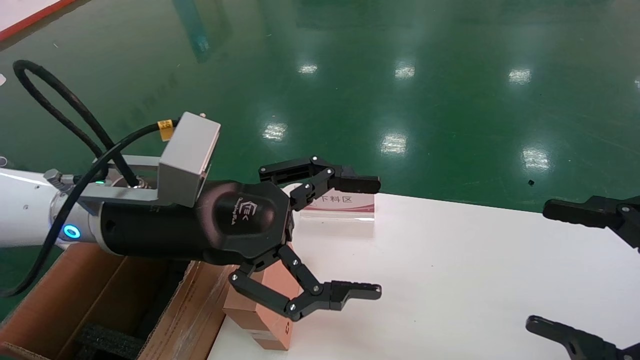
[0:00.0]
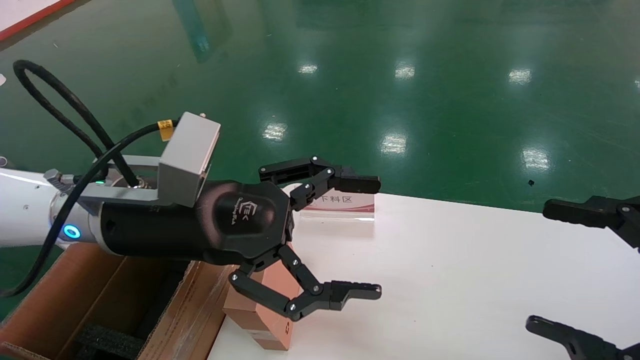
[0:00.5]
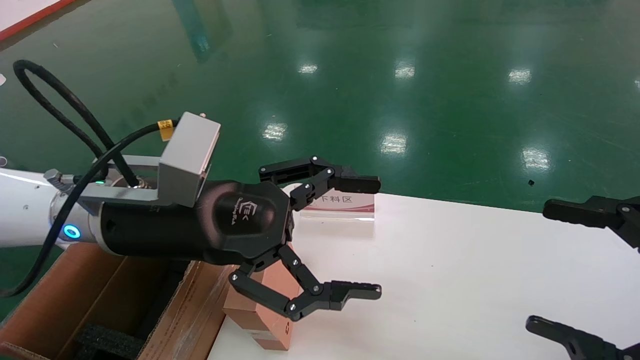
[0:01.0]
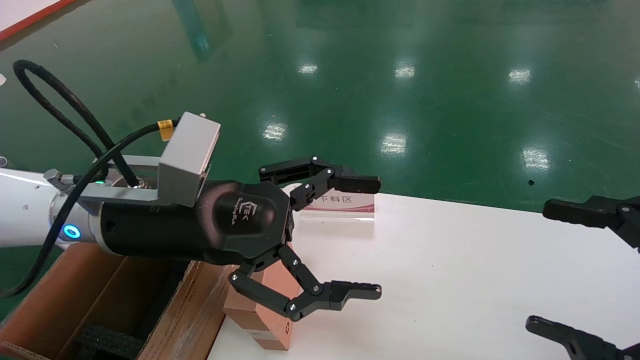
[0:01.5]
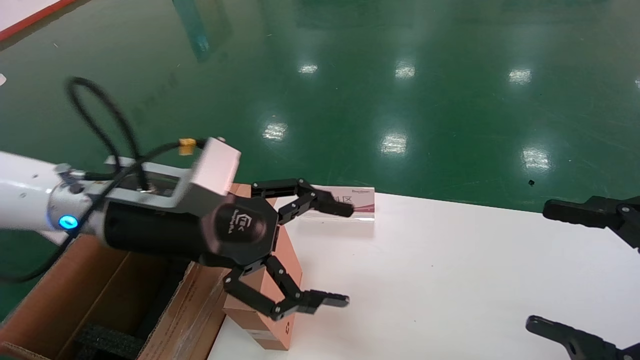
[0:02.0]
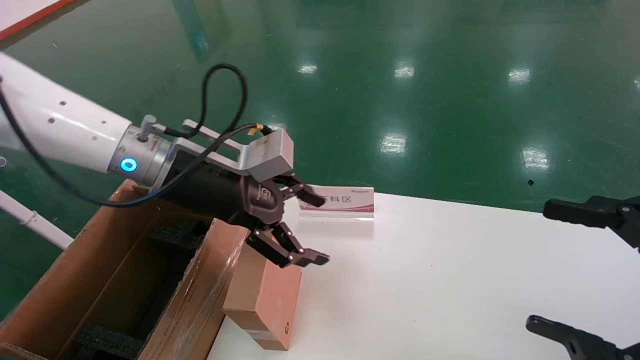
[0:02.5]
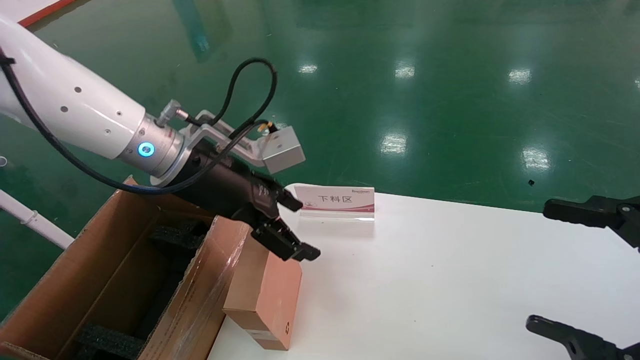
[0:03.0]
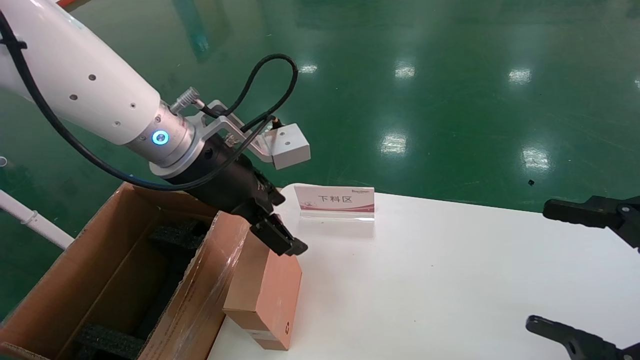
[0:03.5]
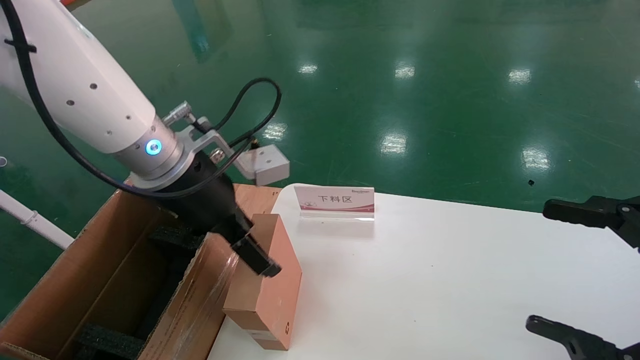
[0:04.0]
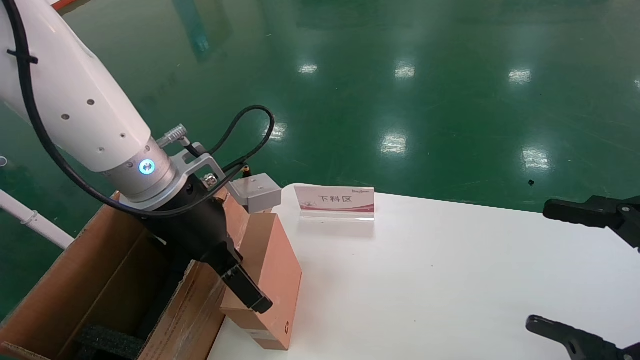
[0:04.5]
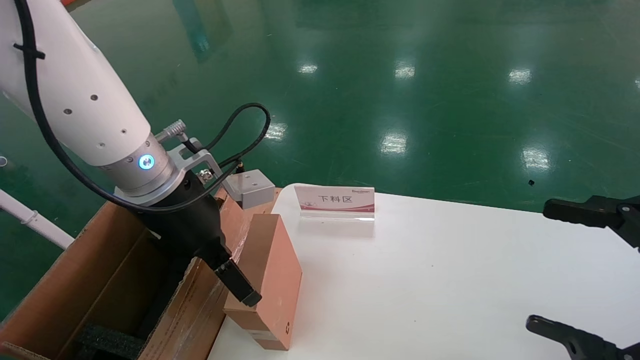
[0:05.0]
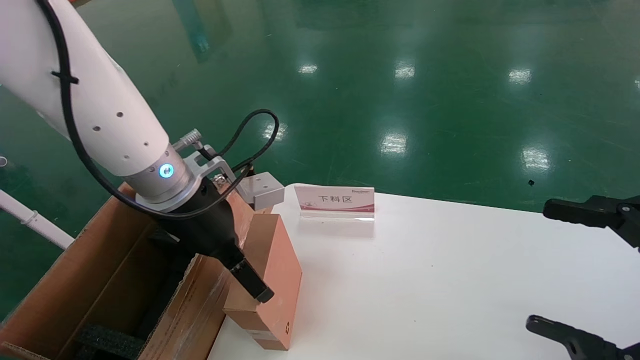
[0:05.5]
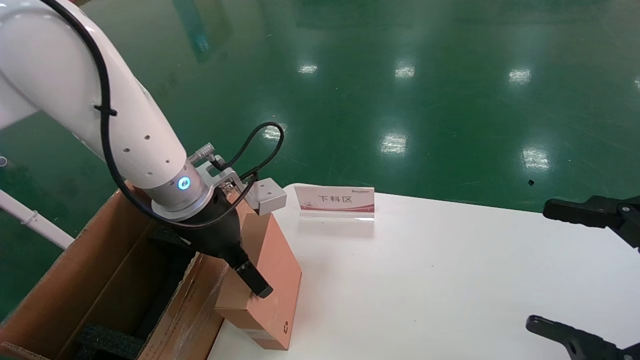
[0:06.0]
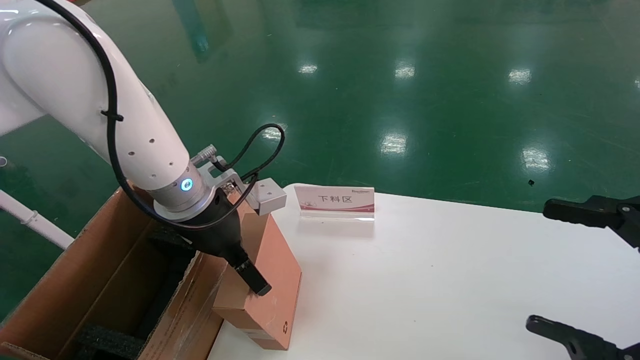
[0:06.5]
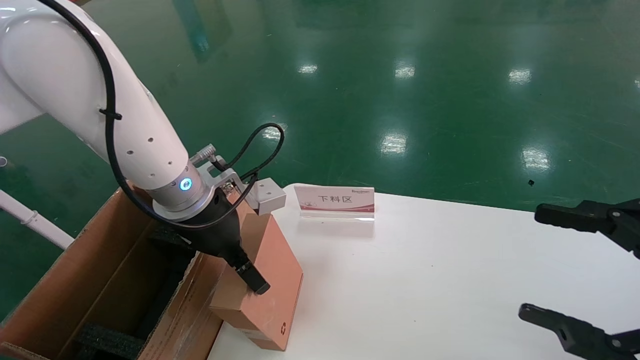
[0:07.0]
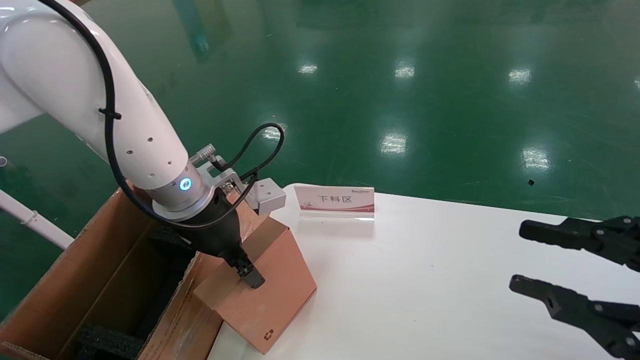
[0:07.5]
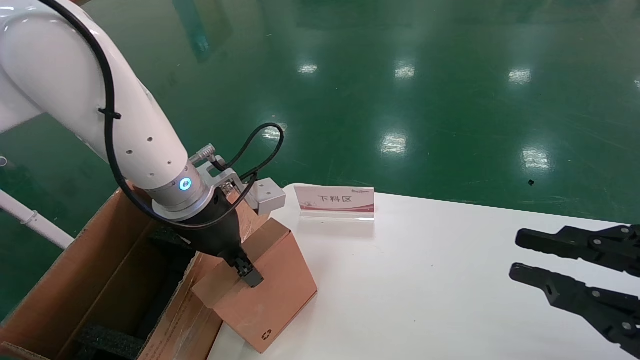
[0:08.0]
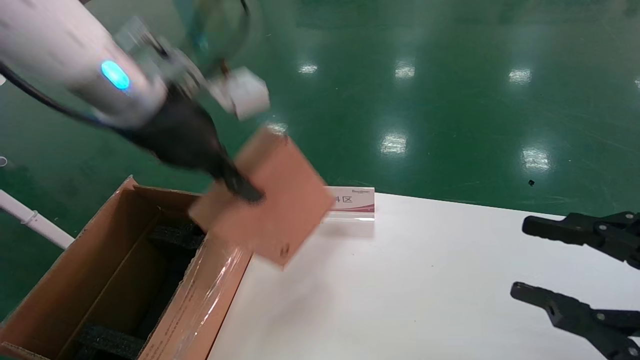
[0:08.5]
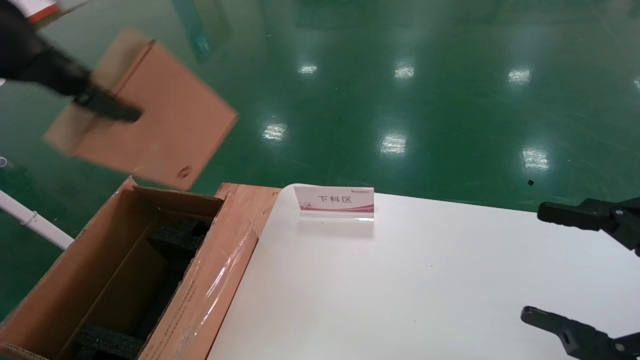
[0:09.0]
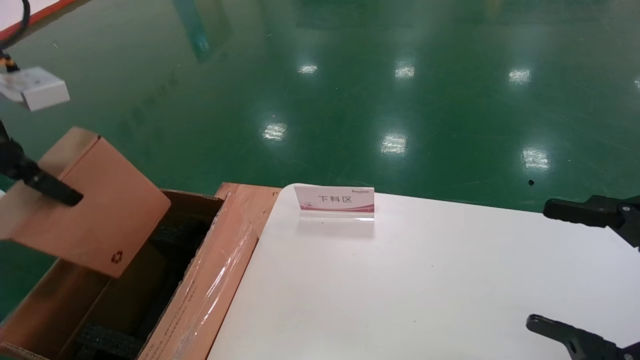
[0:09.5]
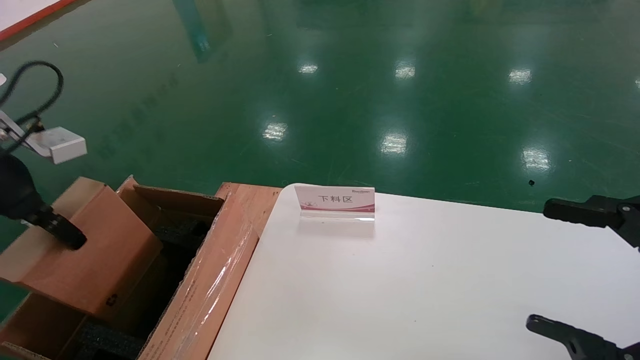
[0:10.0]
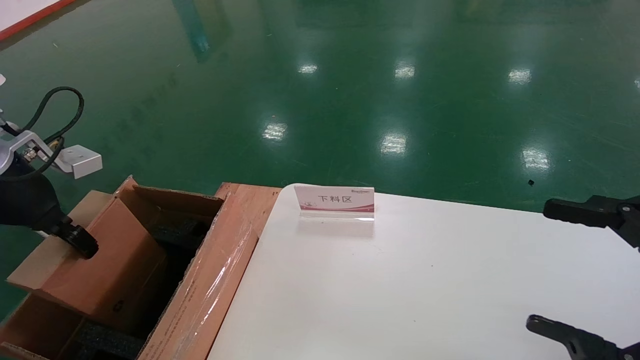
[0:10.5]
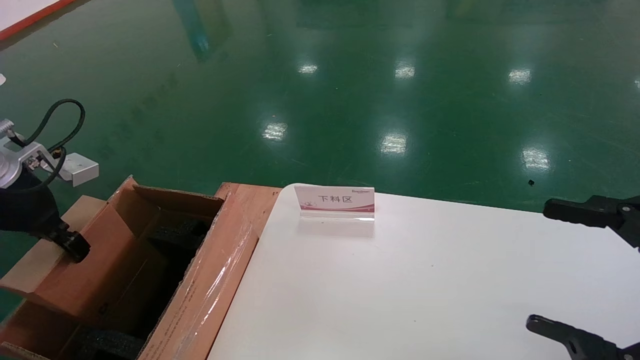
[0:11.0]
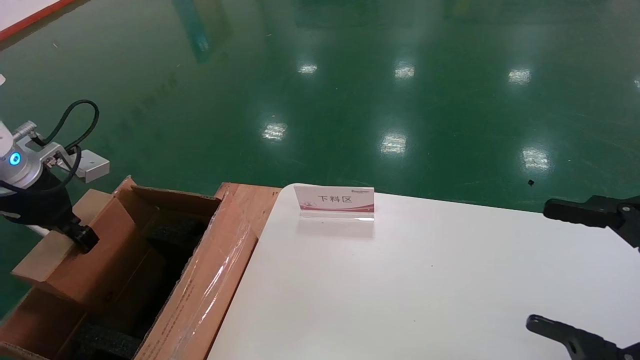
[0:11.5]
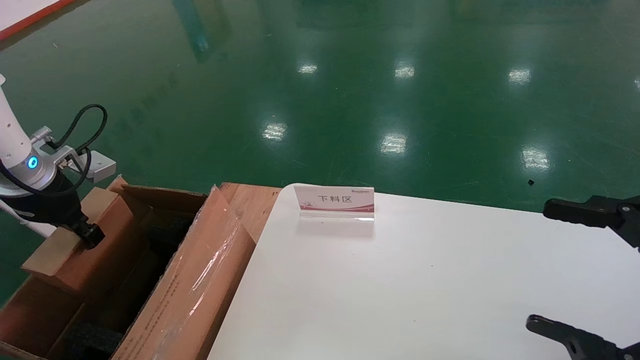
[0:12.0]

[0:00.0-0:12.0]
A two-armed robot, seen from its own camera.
Task of the whole recording: pick up the small cardboard box and load it into the large cardboard box.
Step, 0:02.5 to 0:07.5: Pick up the mouse and power cord box.
0:00.0 to 0:02.0: There are only small adjustments of the grippers.
0:02.0 to 0:04.0: The left gripper changes place by about 5 cm.
0:04.0 to 0:06.0: The left gripper moves about 5 cm.
0:06.0 to 0:08.0: The left gripper closes; the right gripper closes.
0:08.0 to 0:10.0: The left gripper shifts some 25 cm to the left and backward. Meanwhile the right gripper opens up.
0:10.0 to 0:12.0: The left gripper shifts approximately 10 cm downward and forward.

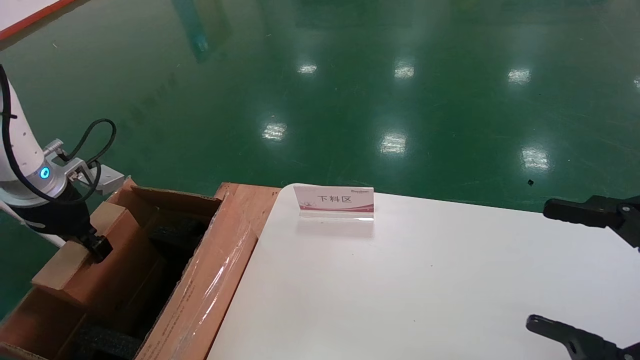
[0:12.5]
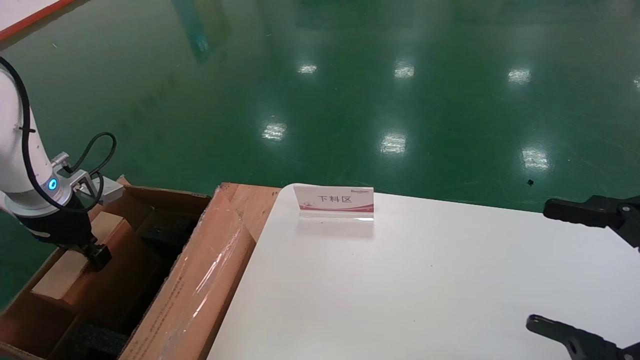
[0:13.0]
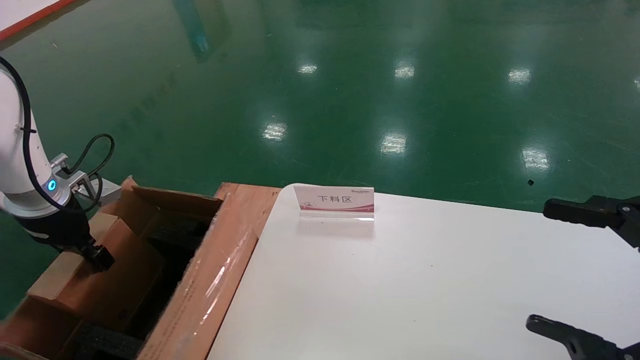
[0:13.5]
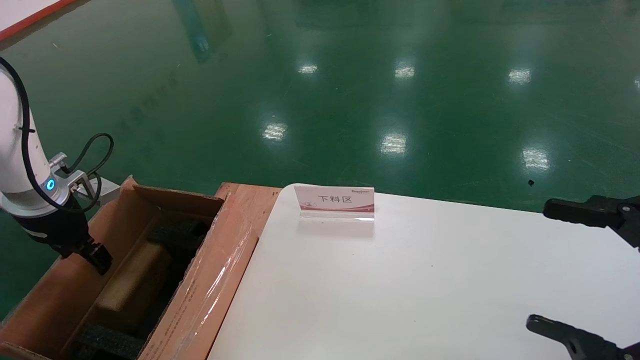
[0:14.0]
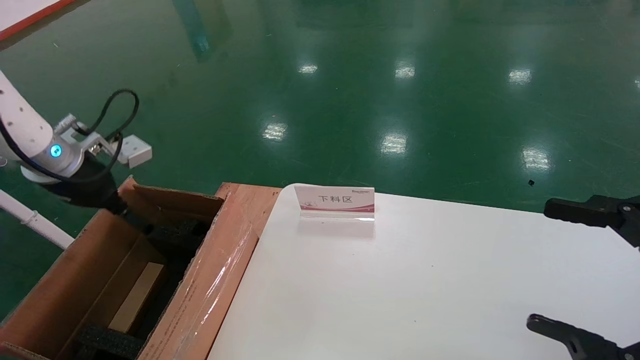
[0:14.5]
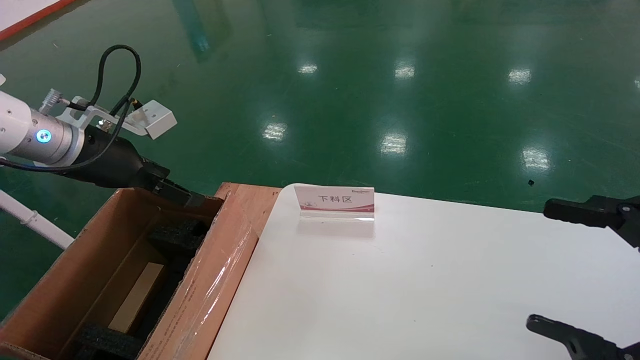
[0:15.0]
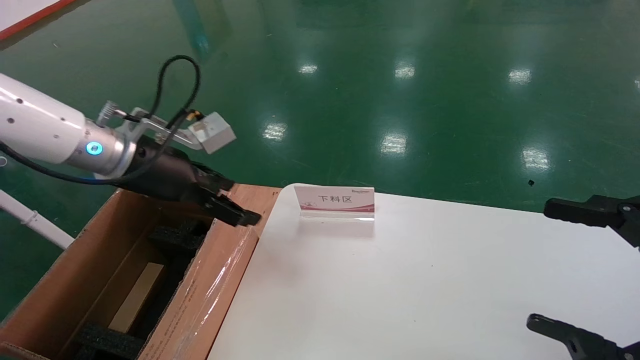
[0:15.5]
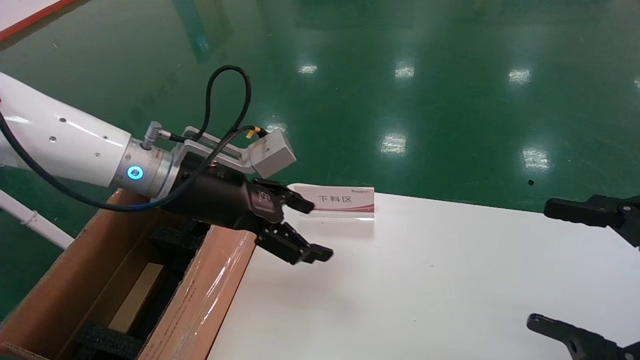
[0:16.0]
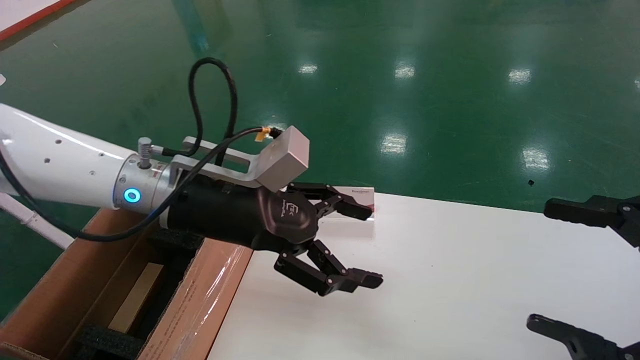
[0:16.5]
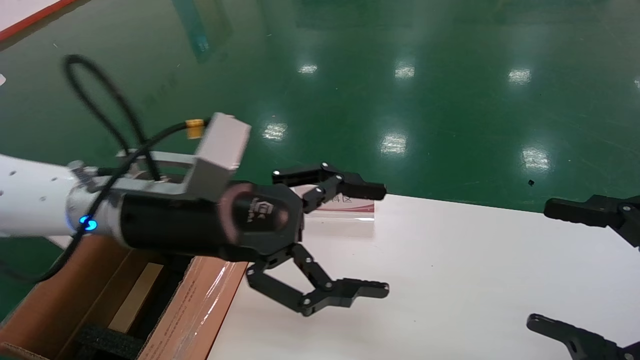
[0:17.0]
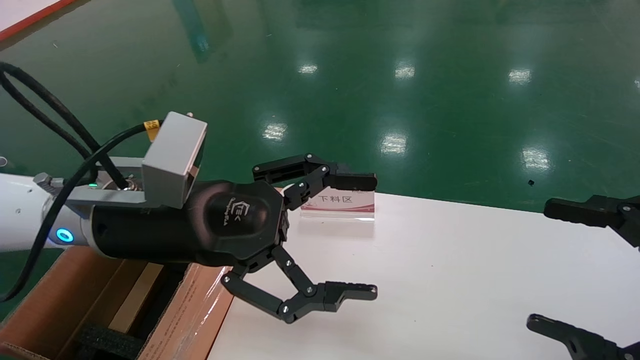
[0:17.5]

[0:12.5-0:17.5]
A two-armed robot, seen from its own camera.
Task of the whole recording: pick up the small cardboard box and load it into the large cardboard box.
0:12.5 to 0:15.0: The left gripper moves to the right and upward, about 10 cm, and opens.
0:15.0 to 0:17.5: The left gripper goes roughly 20 cm to the right and backward.
